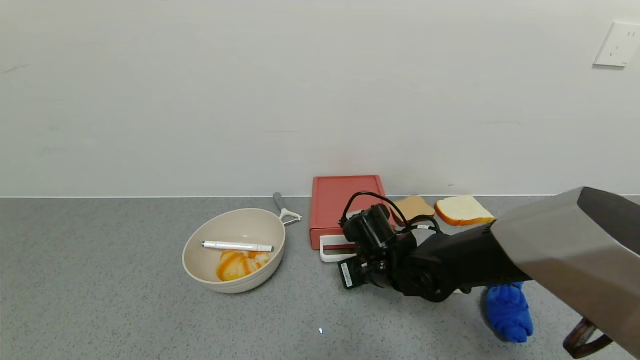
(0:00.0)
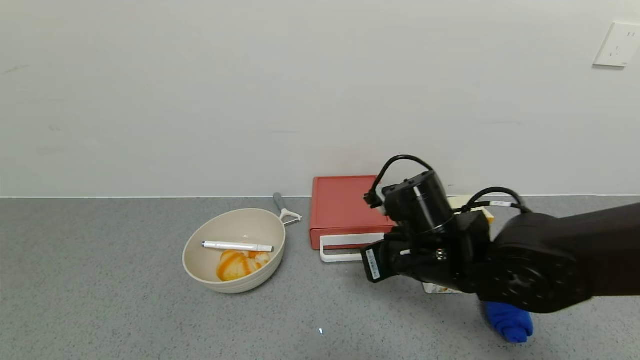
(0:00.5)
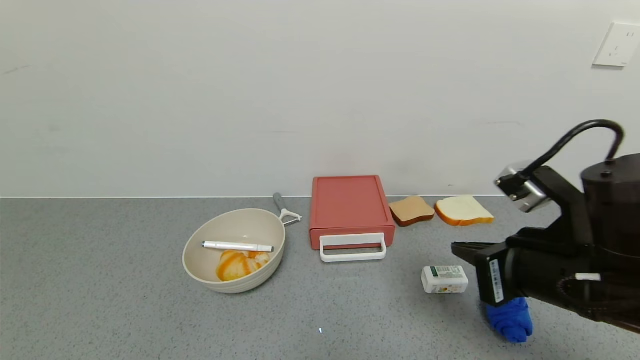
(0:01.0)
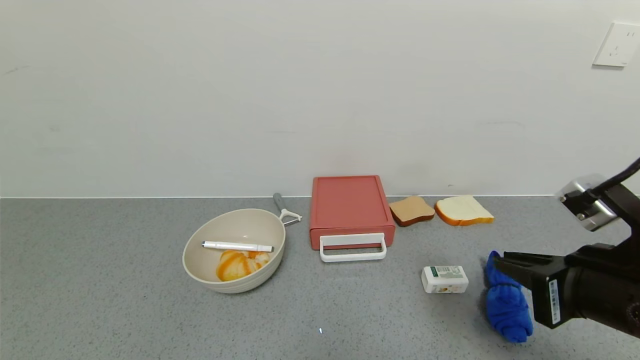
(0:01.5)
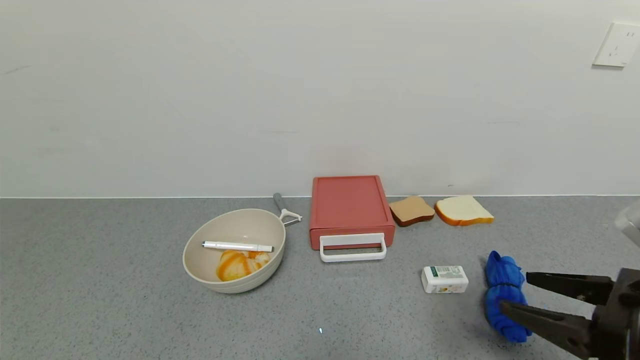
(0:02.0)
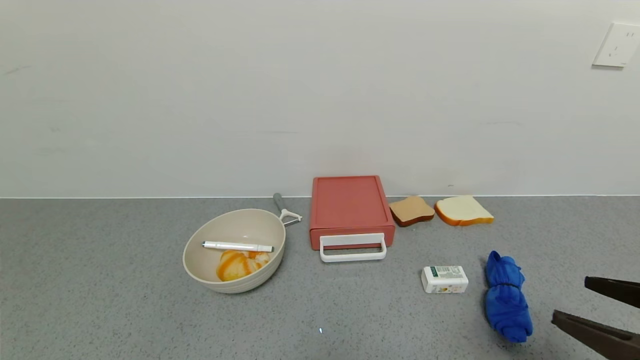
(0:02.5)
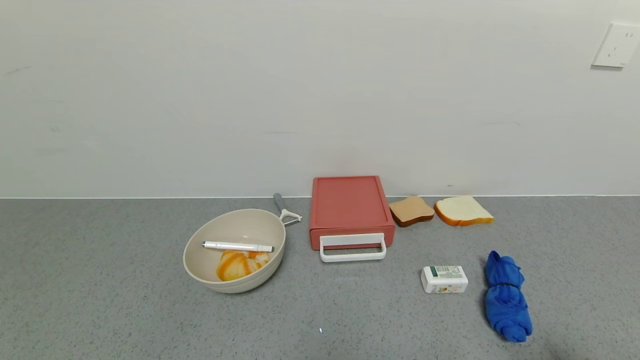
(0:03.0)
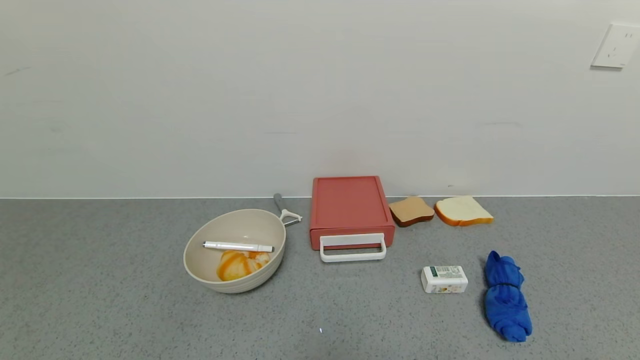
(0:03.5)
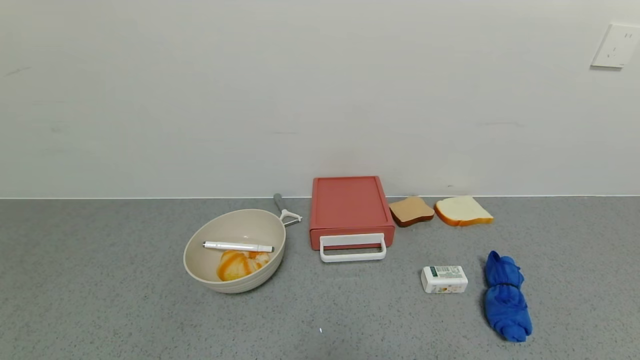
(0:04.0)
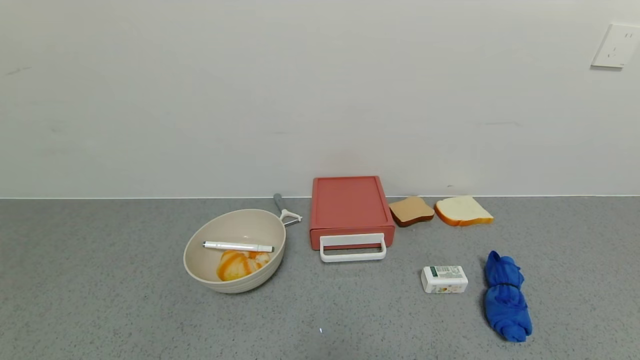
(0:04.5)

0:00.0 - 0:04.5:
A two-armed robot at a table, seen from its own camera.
Task of the whole recording: use the gripper to open the drawer and close the red drawer.
0:00.0 - 0:02.0: The right gripper is displaced to the right, backward and upward by approximately 30 cm, and opens.
0:02.0 - 0:04.5: The right gripper moves backward, downward and to the right, some 20 cm.
